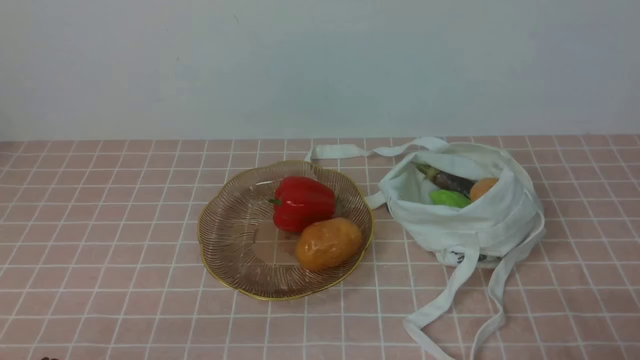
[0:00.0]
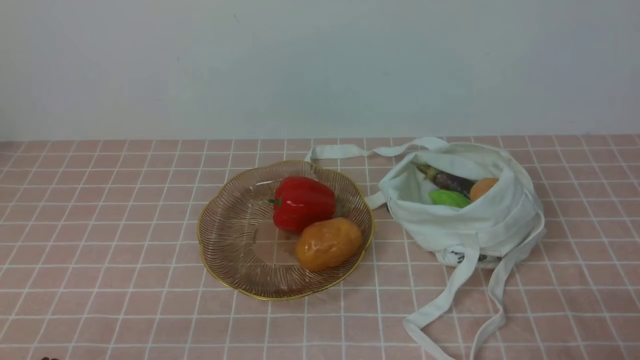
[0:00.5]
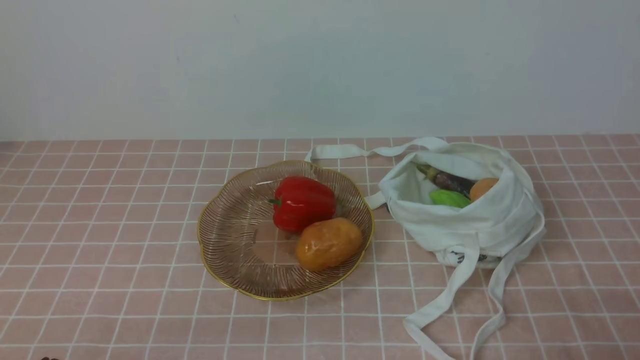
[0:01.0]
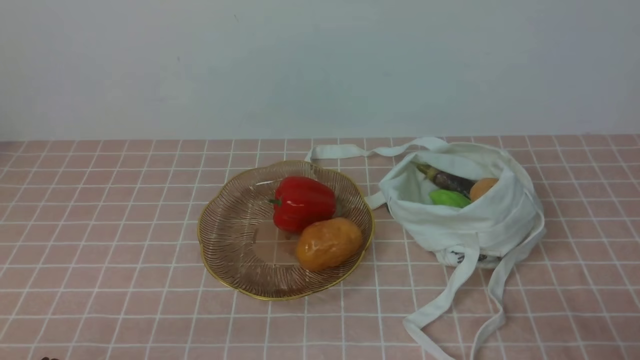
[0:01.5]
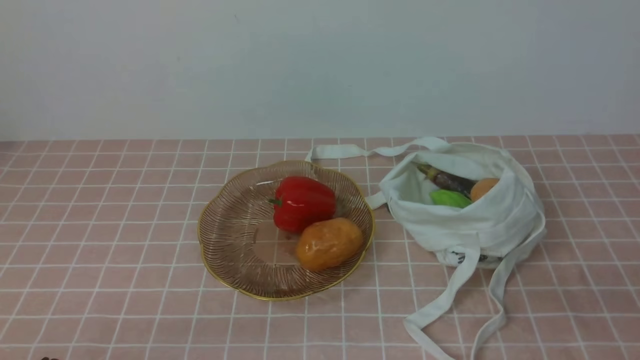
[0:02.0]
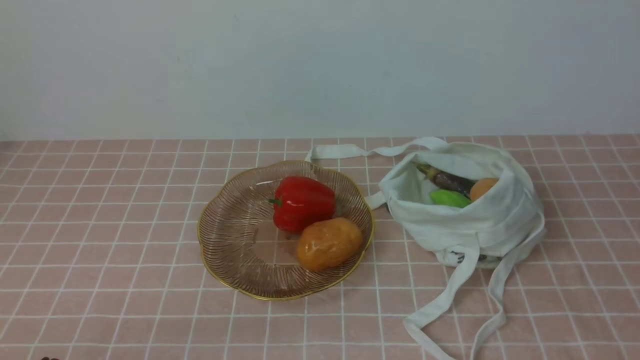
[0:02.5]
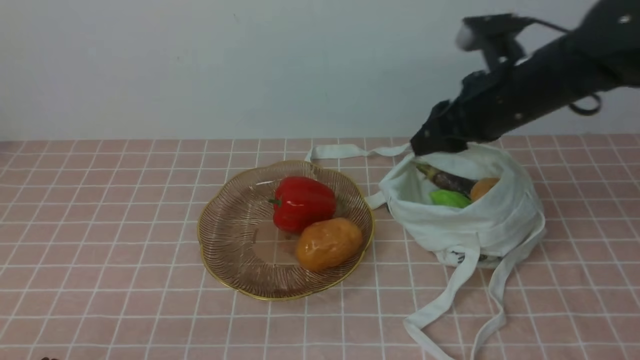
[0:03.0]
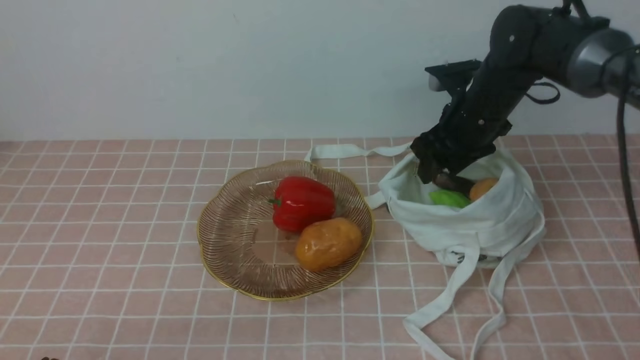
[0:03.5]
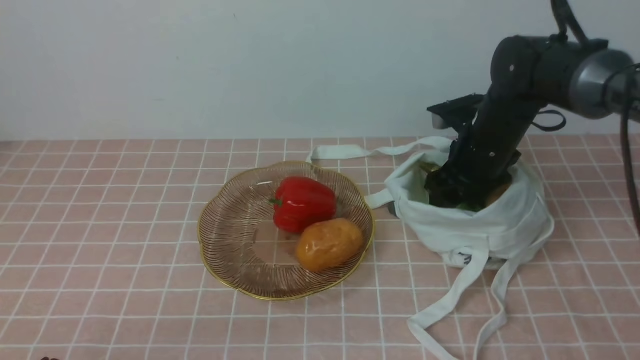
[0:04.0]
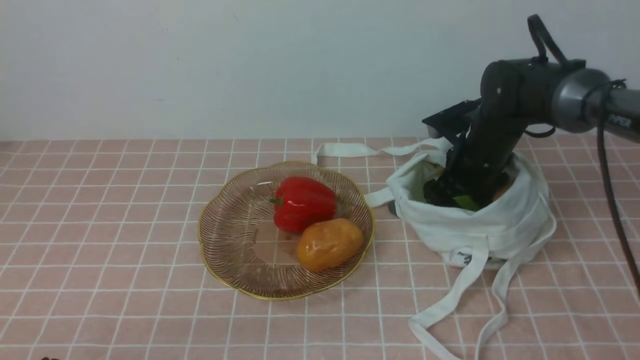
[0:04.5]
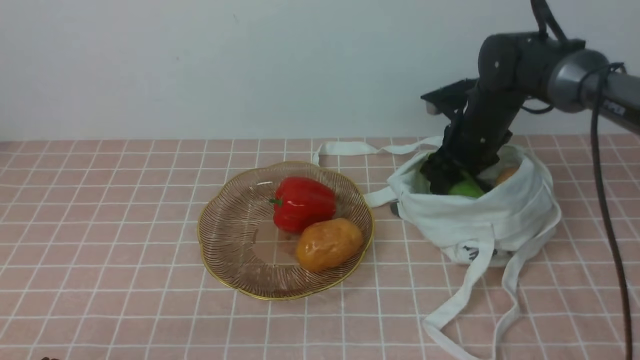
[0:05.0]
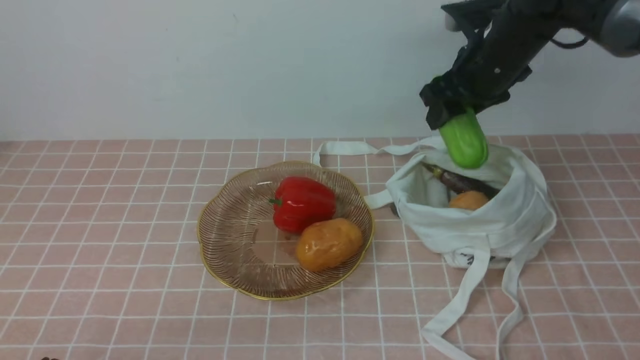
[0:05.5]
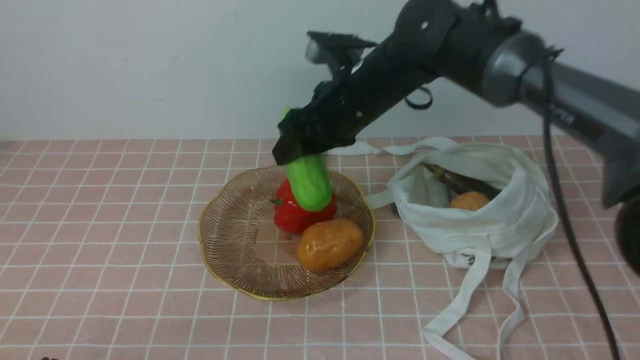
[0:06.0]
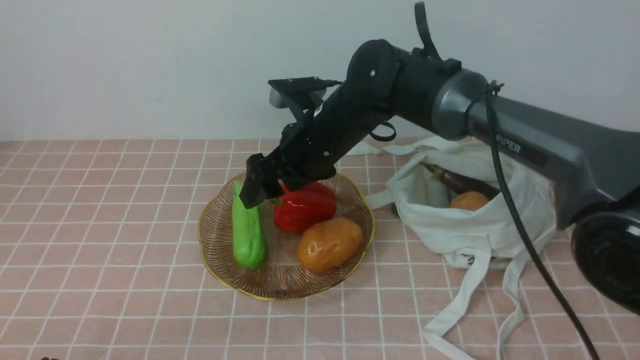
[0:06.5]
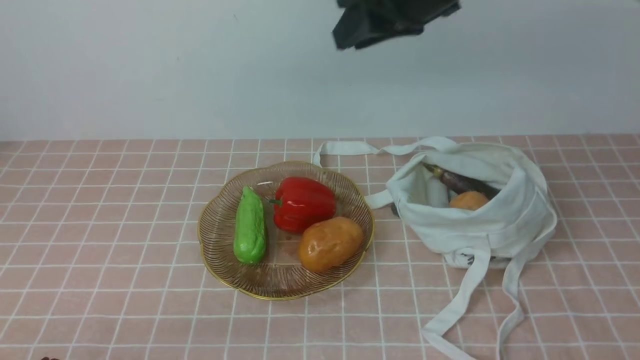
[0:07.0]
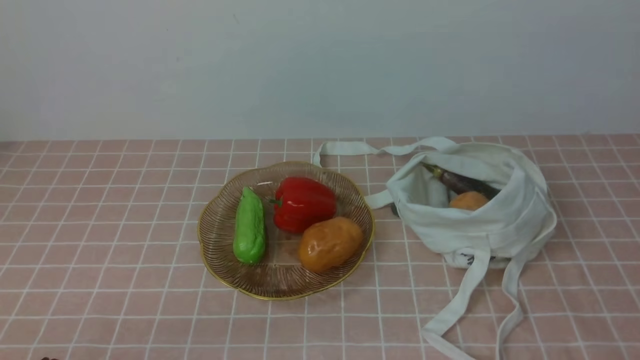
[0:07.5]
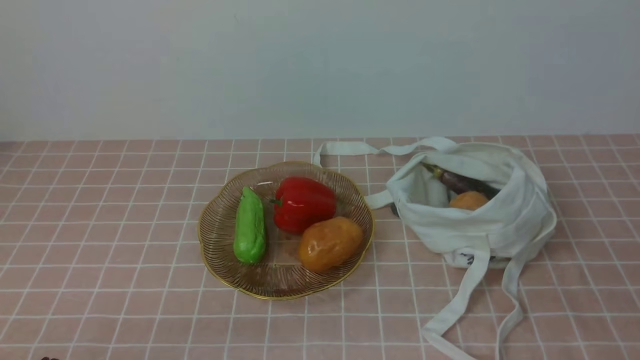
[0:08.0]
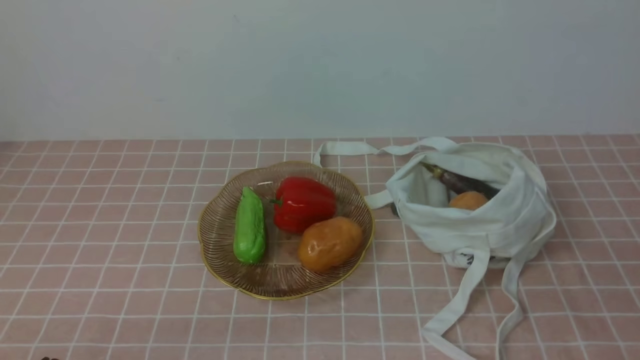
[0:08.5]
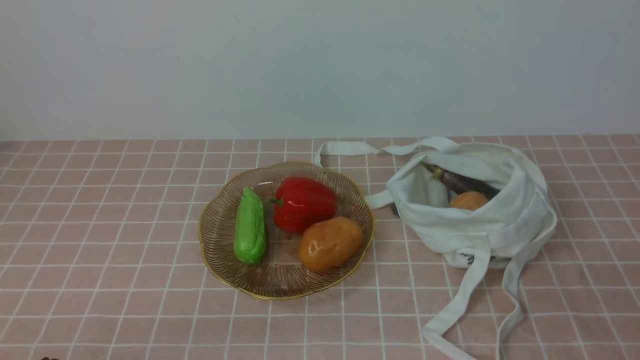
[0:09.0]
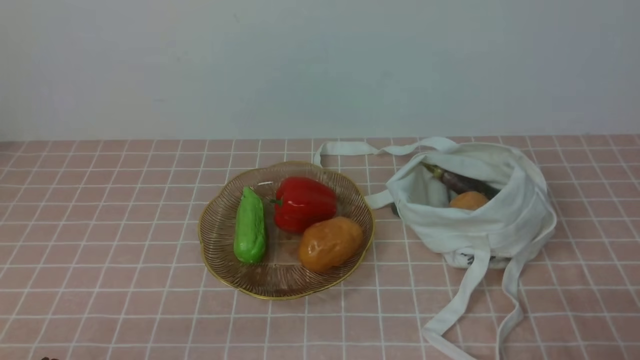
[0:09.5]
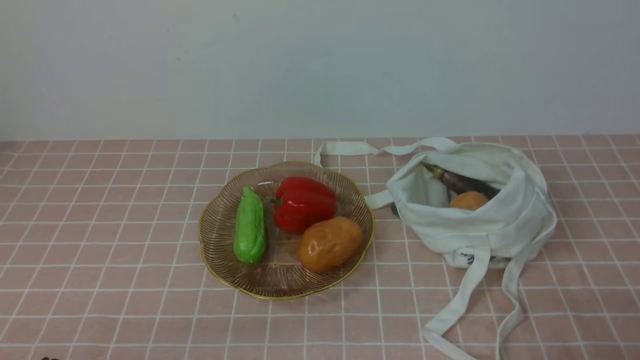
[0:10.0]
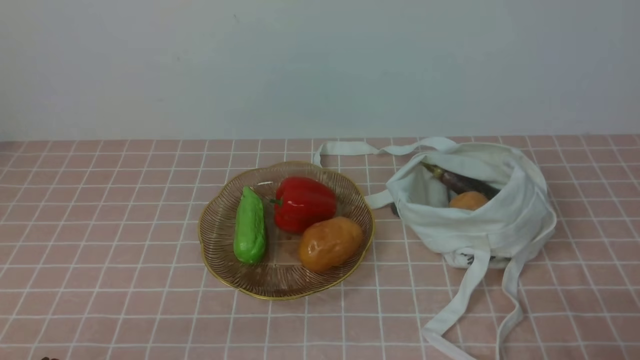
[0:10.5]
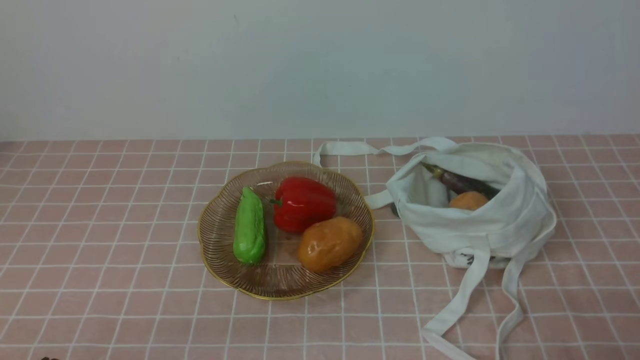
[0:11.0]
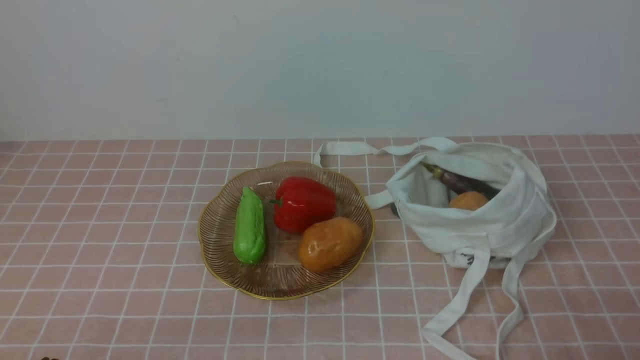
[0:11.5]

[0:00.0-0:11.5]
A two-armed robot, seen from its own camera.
Task of the whole recording: take vegetables from bag on pink coffee tablecloth place on plate.
Step, 0:00.0 to 0:04.5: Grasp the bitter melon with right gripper.
Step, 0:05.0 to 0:06.5: Place the bitter melon on the plate with right gripper.
0:02.0 to 0:04.0: The right gripper shifts approximately 40 cm forward, and opens up.
0:04.0 to 0:06.0: The right gripper is displaced to the left and upward by some 15 cm.
0:06.0 to 0:07.5: The right gripper is displaced backward, to the right and upward by roughly 40 cm, and closes its fingers.
0:09.5 to 0:11.5: Neither gripper changes place.

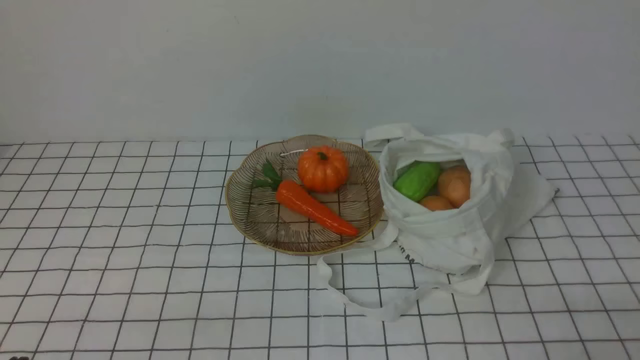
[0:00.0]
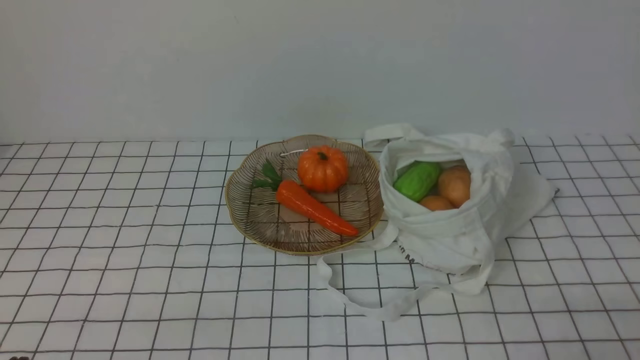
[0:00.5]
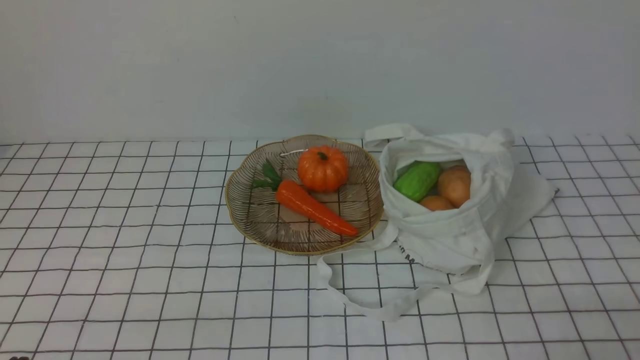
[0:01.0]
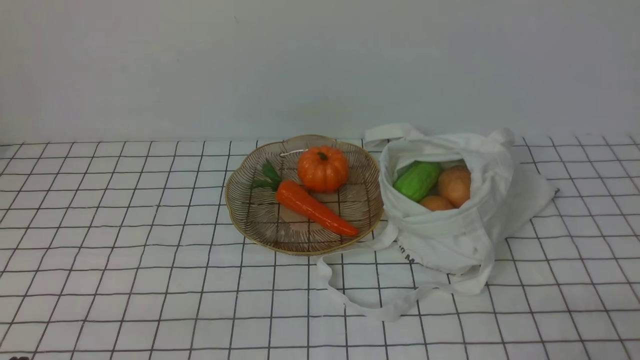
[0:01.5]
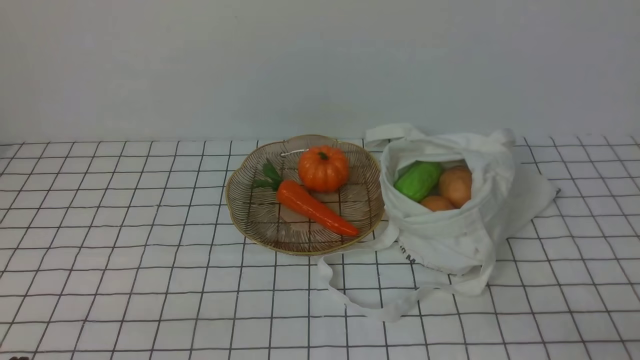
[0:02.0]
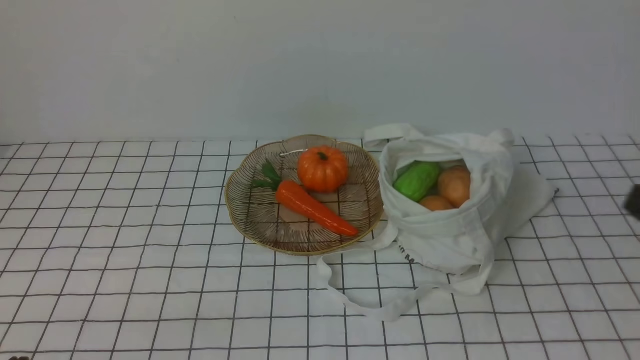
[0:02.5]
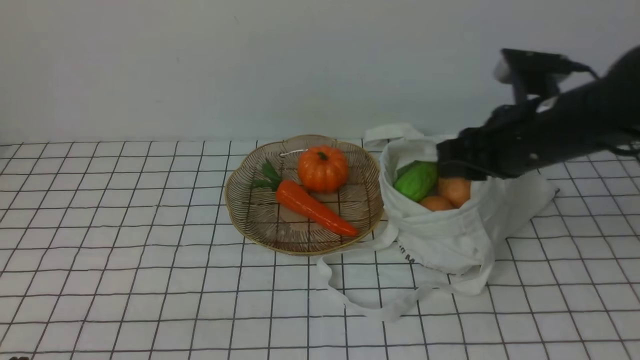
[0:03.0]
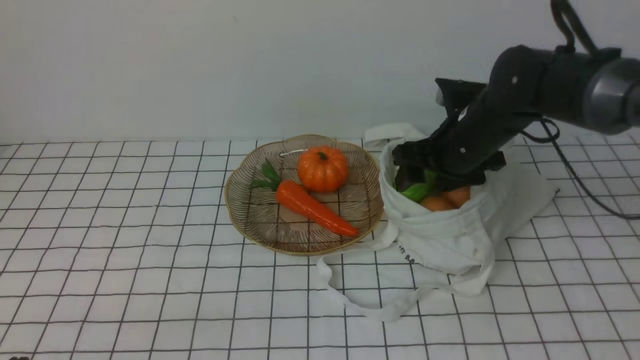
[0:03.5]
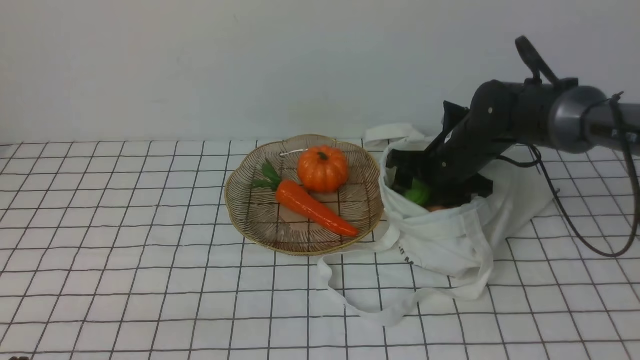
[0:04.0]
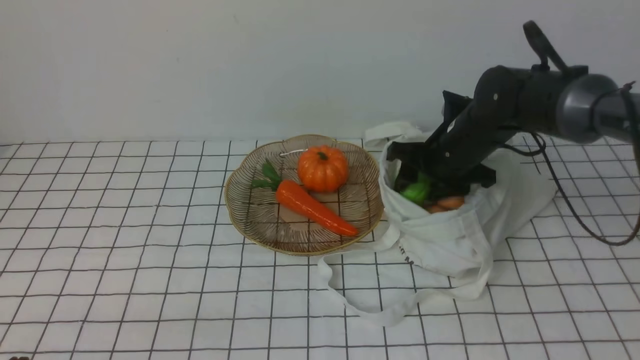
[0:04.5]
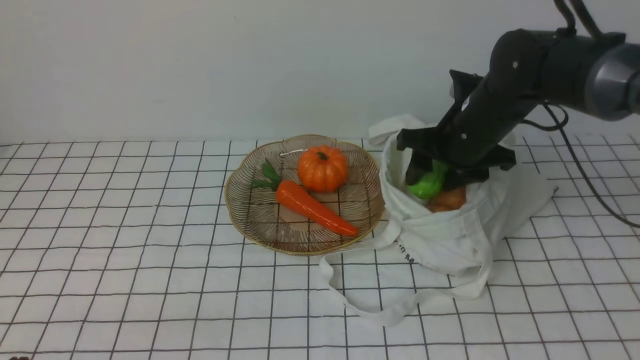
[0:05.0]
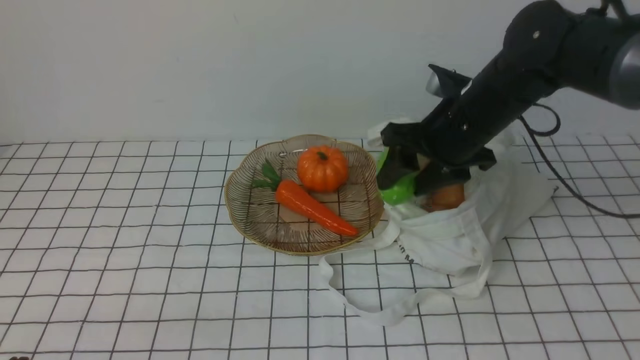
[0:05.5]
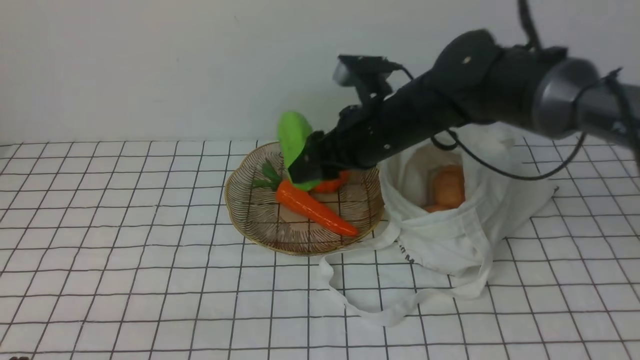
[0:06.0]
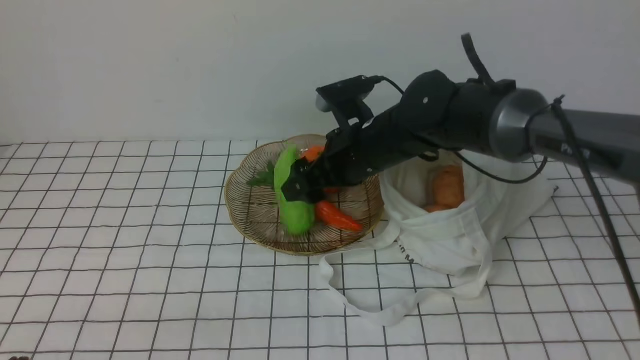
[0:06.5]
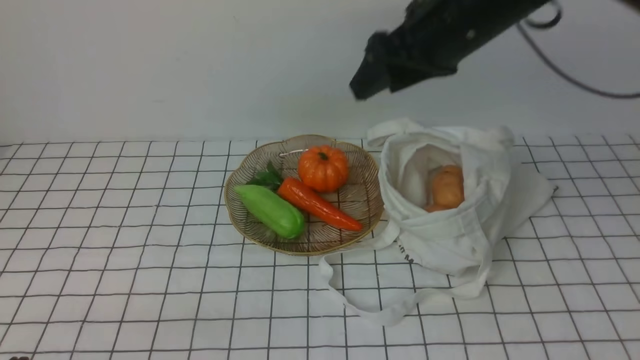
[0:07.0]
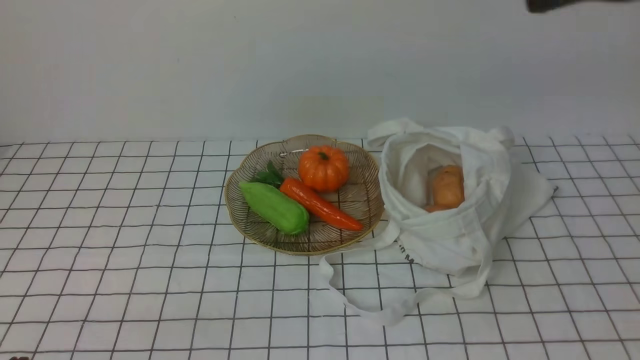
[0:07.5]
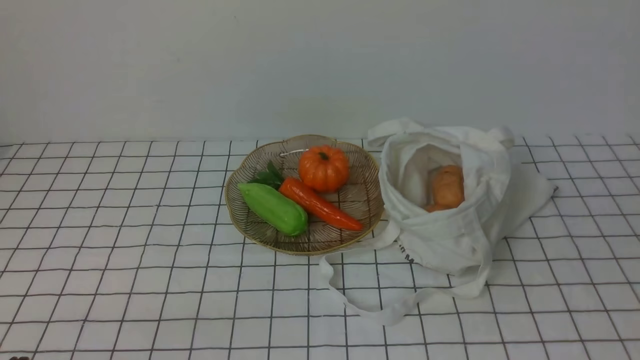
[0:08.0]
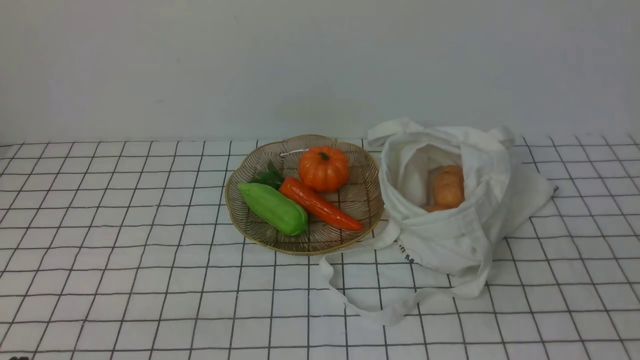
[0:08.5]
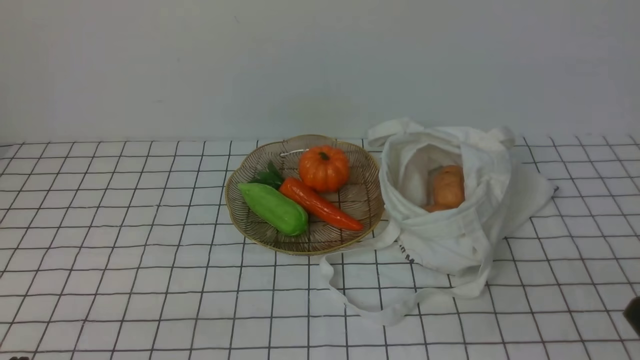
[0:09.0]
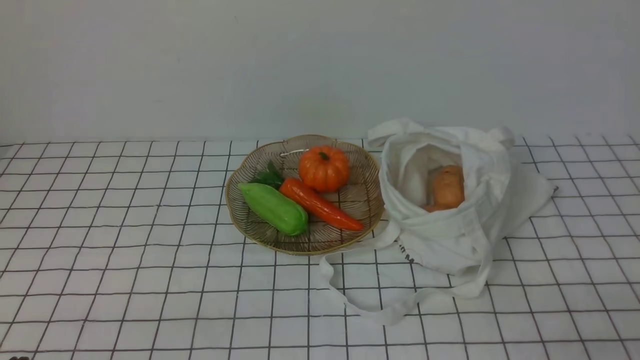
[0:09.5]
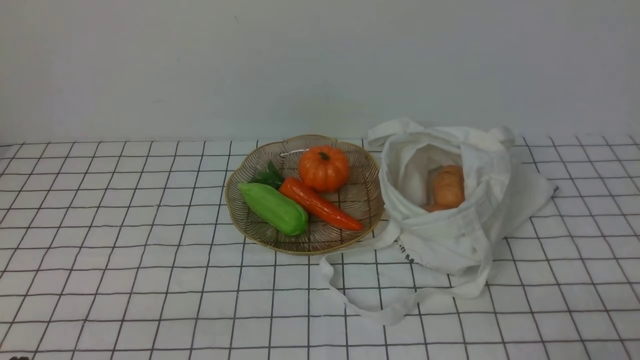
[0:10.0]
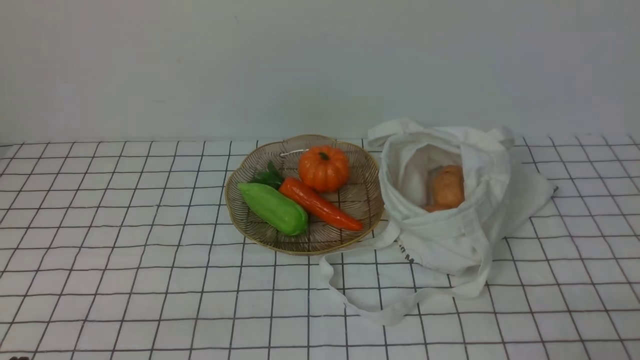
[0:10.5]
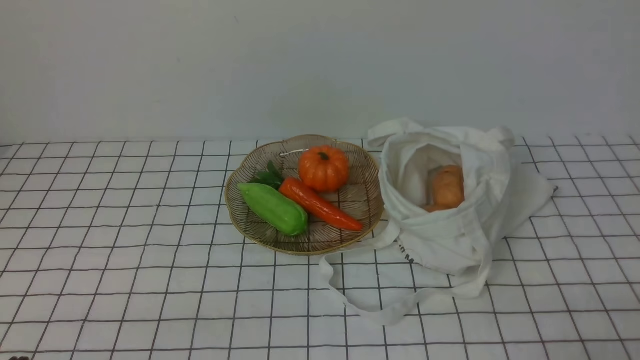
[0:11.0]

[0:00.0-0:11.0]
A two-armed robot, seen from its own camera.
Task of the whole recording: take vegetables from bag on white checkered tablecloth place on plate.
Step, 0:00.0 to 0:04.5: Grasp the bitter melon with right gripper.
Step, 0:05.0 to 0:06.5: Place the bitter melon on the plate with right gripper.
0:02.0 to 0:03.5: The right gripper moves forward, about 35 cm, and opens its fingers.
0:05.5 to 0:07.5: The right gripper moves upward and backward, roughly 25 cm, and closes.
